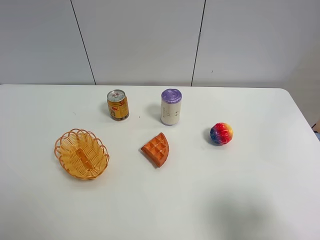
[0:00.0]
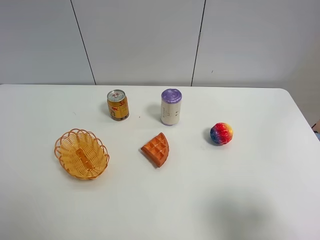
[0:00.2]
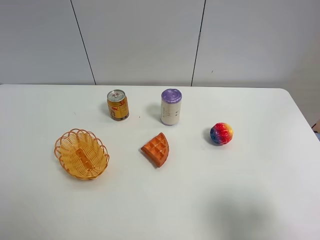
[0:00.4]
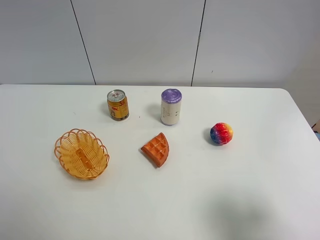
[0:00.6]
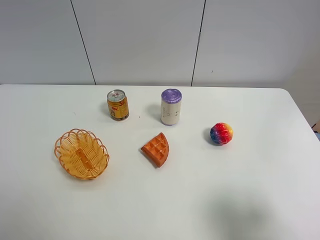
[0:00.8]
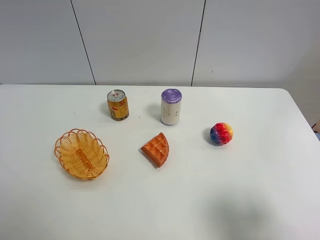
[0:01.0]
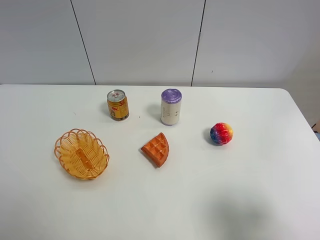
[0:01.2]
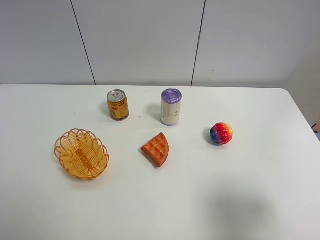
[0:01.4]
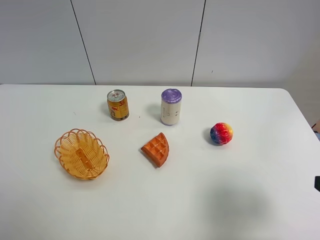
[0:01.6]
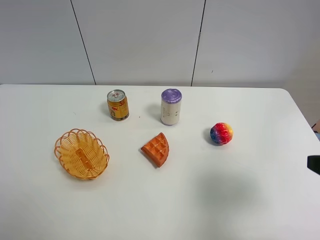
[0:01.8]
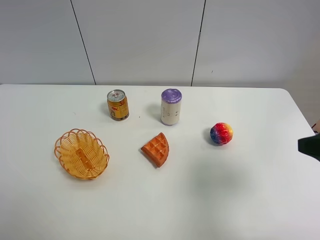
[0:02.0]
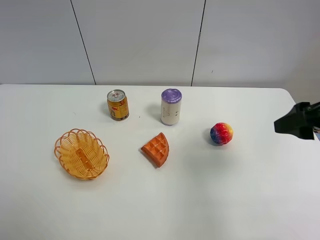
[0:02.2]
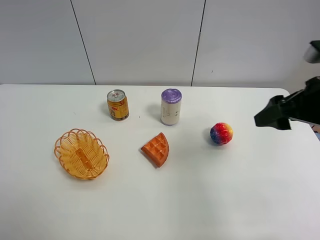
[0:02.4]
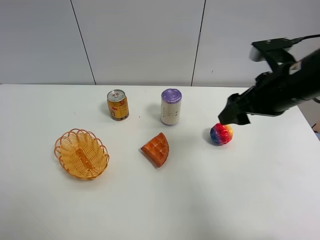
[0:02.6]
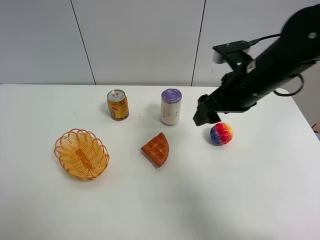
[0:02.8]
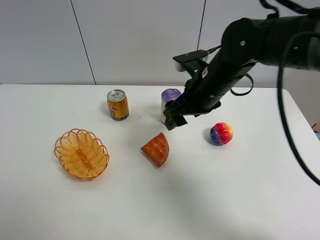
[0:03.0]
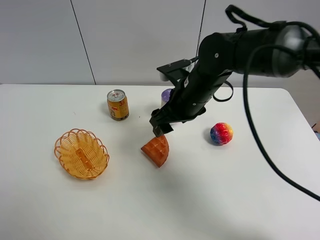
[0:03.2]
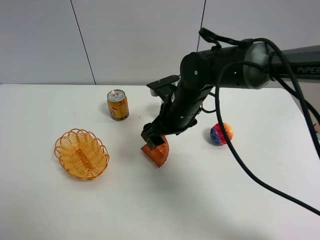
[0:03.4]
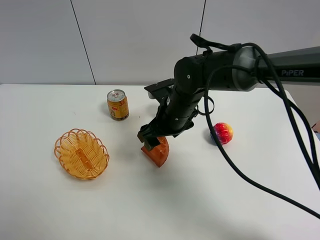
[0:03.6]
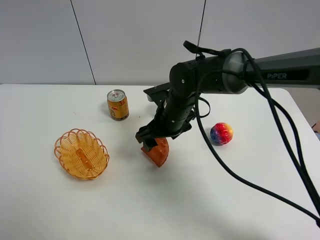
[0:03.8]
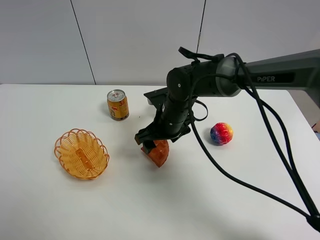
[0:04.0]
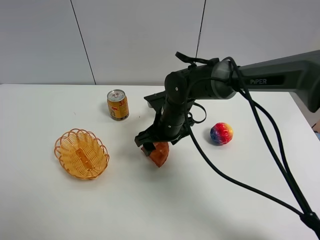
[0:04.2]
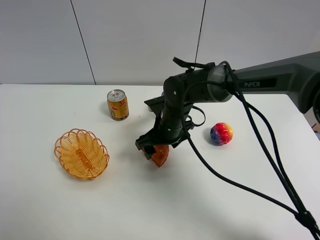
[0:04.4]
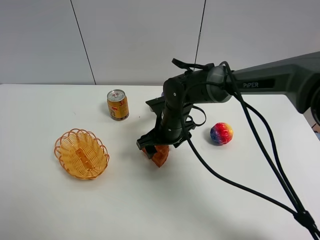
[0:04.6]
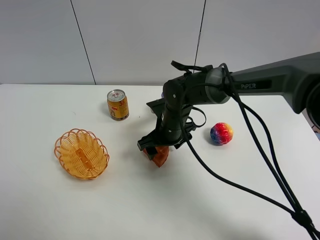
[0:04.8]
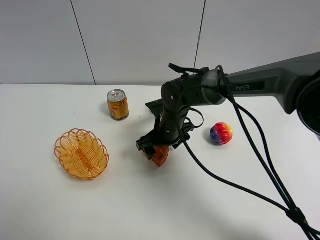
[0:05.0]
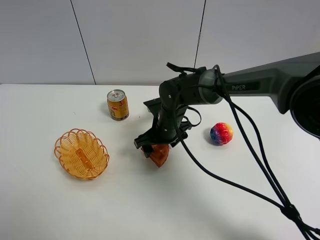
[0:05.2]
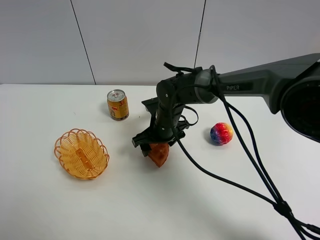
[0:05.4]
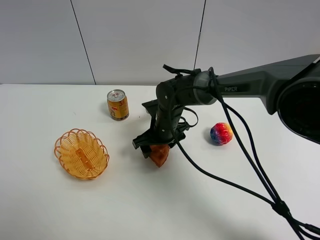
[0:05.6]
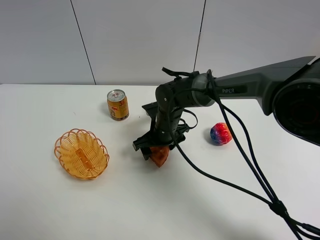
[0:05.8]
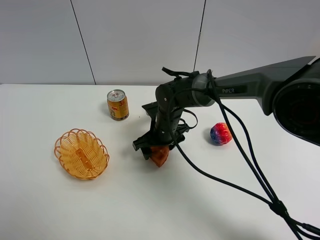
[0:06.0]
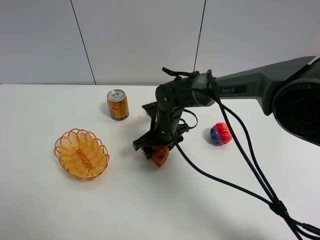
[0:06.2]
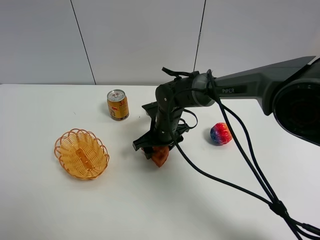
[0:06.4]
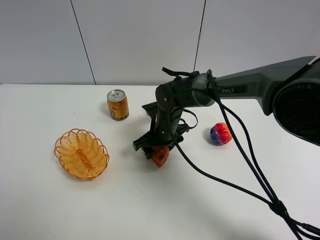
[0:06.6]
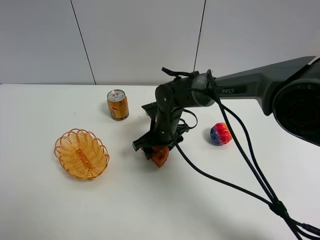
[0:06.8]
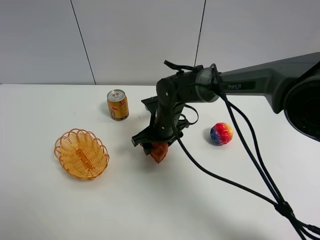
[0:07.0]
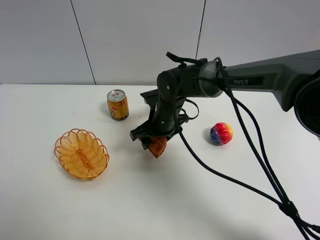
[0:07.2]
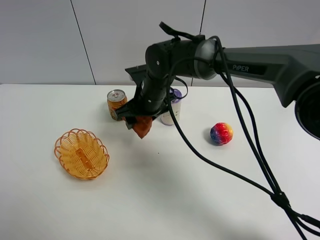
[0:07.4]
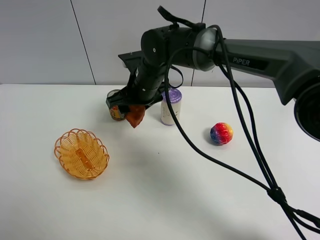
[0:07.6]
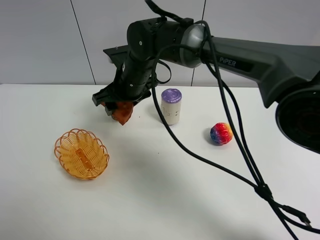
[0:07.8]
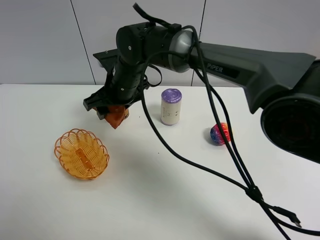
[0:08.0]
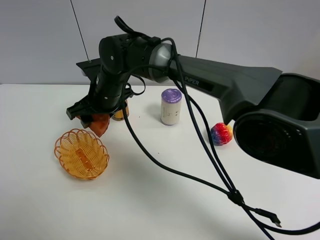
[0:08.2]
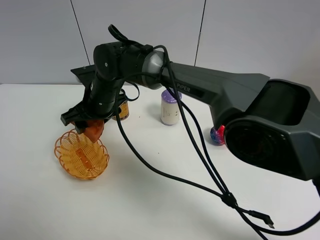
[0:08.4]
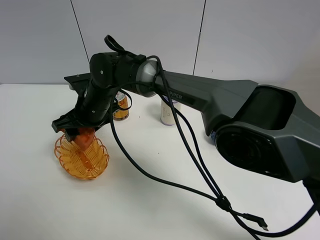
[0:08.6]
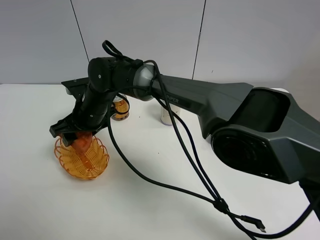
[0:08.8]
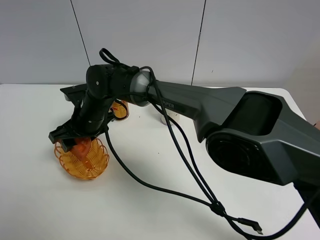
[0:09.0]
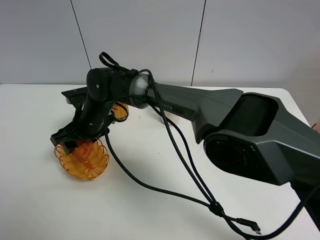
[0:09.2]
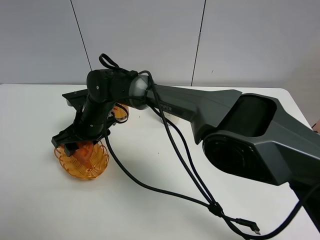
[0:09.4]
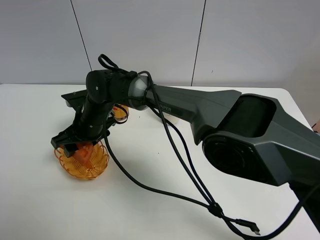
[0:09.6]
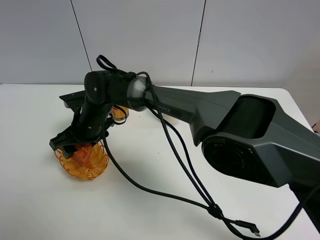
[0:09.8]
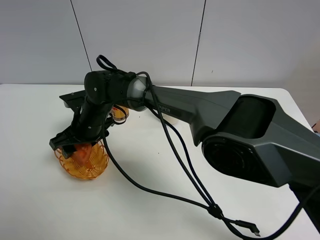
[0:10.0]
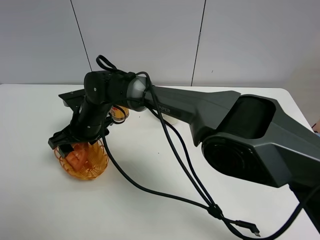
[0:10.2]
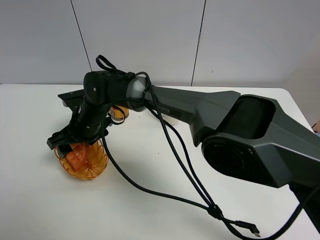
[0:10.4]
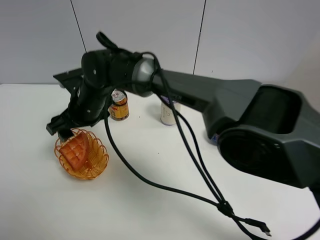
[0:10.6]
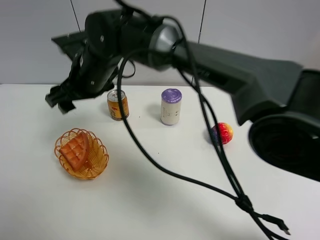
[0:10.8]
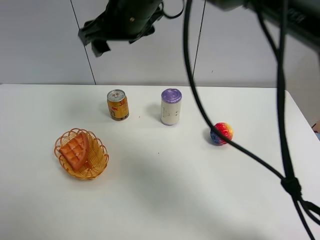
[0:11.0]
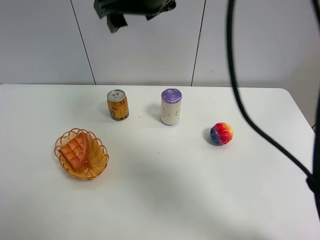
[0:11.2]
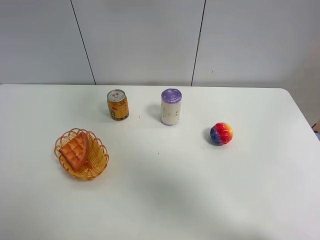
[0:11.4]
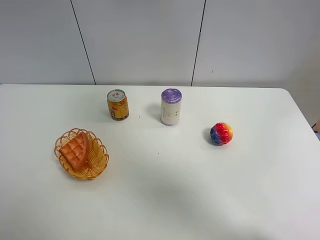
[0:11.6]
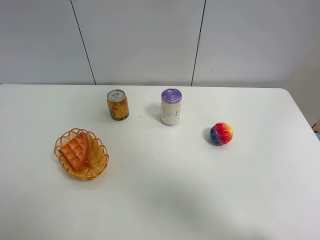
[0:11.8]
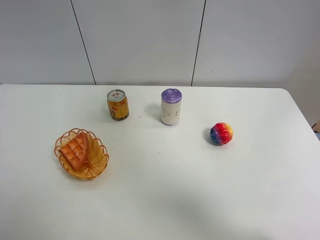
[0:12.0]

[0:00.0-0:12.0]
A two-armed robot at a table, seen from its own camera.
Task of the whole recording: Put the bakery in the basket.
Step, 0:00.0 to 0:06.8: Grasp the bread with right gripper.
Step, 0:07.0 to 0:10.6: Place the bread in the basket with right gripper.
0:00.0 to 0:01.6: The right gripper is displaced forward by roughly 5 cm.
0:01.6 to 0:03.0: The right gripper travels forward and to the left by approximately 30 cm.
0:03.0 to 0:04.4: The right gripper shifts some 15 cm downward and to the left.
0:04.4 to 0:06.0: There are only small adjustments of the grippers.
0:06.0 to 0:07.6: The right gripper shifts some 10 cm upward.
0:07.6 to 0:09.0: The right gripper moves to the left and downward, roughly 15 cm.
0:09.0 to 0:10.4: Neither gripper changes place.
0:10.4 to 0:12.0: The right gripper shifts roughly 50 cm upward and to the right.

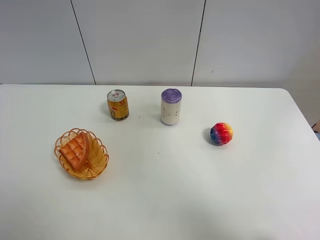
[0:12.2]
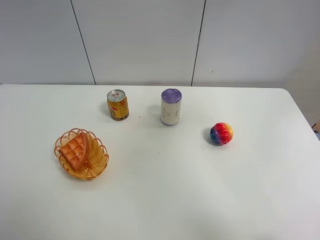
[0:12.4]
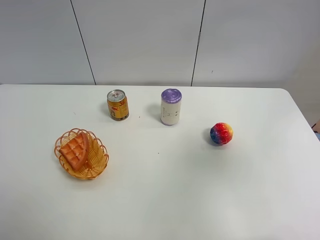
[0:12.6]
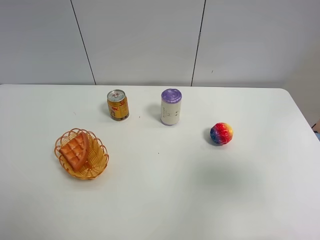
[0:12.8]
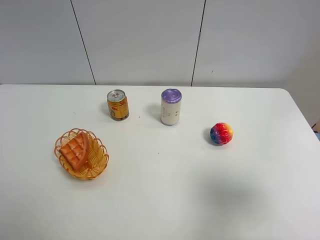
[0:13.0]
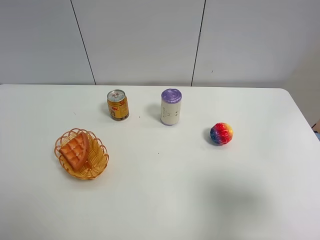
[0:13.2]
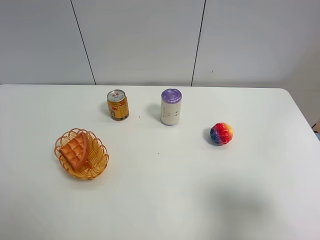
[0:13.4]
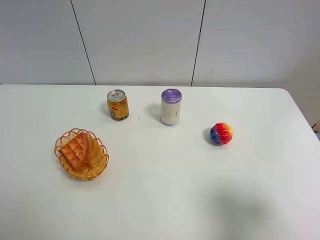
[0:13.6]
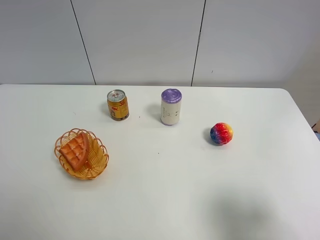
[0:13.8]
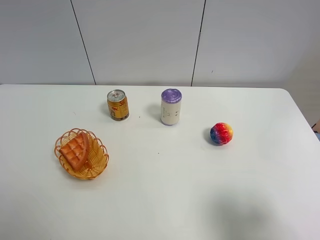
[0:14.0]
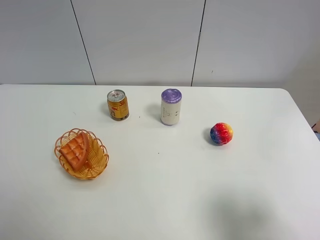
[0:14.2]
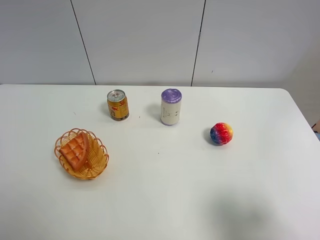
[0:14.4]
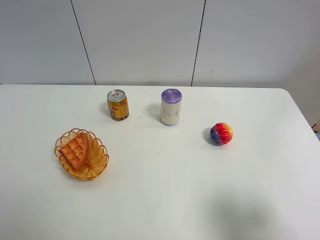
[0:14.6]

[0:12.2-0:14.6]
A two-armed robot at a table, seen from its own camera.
Task of the whole recording: Put the bakery in the basket.
0:12.2 to 0:13.4: The right gripper moves downward and backward, about 30 cm.

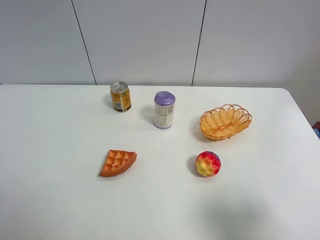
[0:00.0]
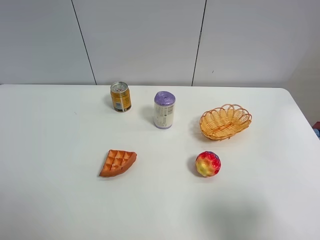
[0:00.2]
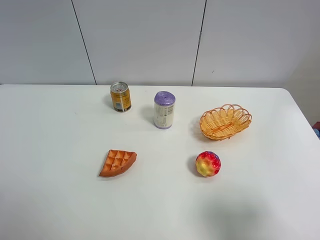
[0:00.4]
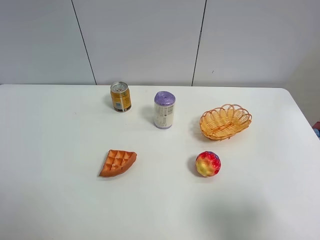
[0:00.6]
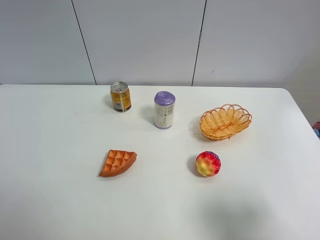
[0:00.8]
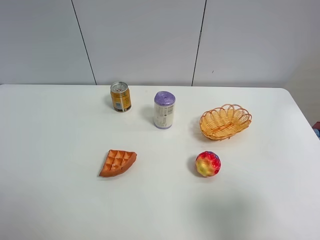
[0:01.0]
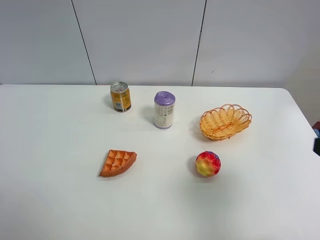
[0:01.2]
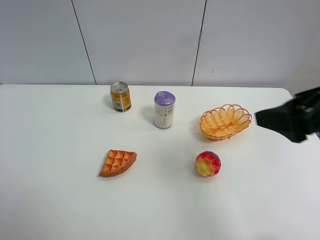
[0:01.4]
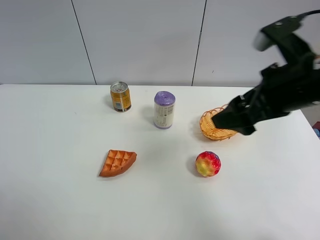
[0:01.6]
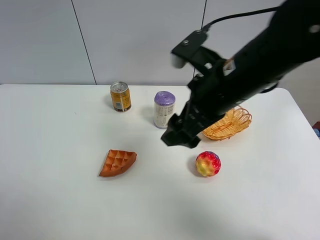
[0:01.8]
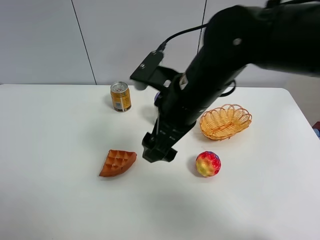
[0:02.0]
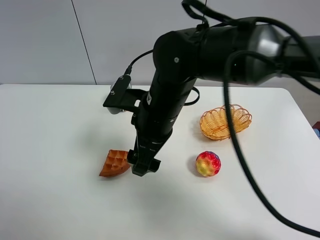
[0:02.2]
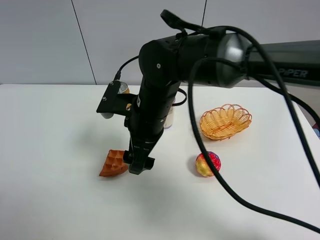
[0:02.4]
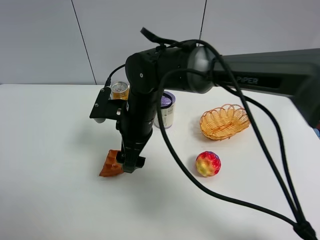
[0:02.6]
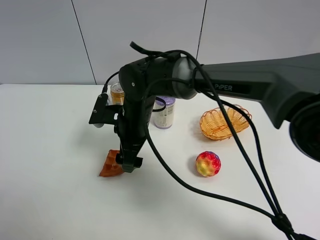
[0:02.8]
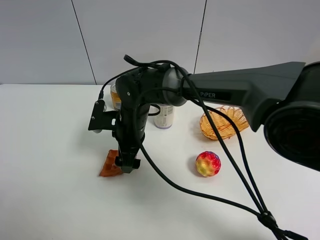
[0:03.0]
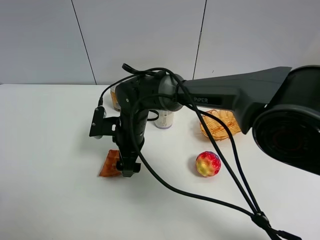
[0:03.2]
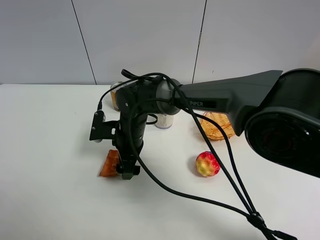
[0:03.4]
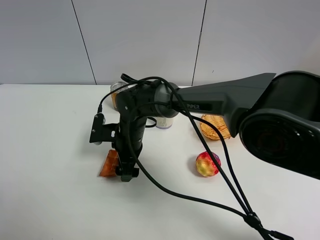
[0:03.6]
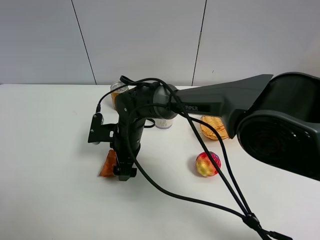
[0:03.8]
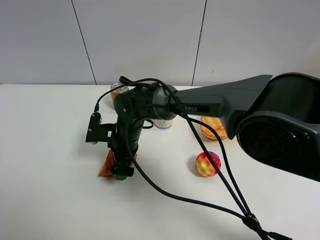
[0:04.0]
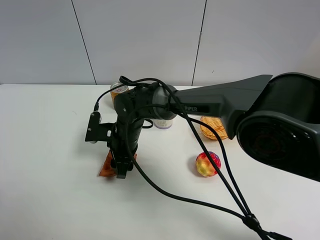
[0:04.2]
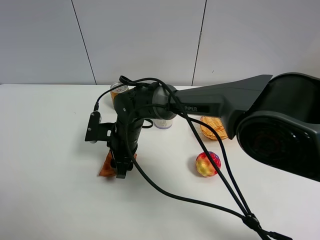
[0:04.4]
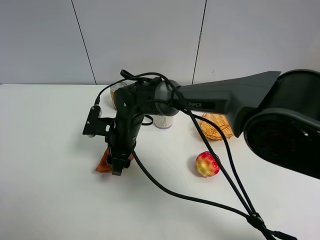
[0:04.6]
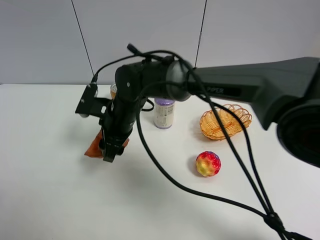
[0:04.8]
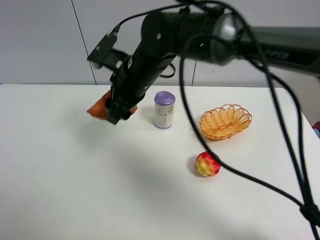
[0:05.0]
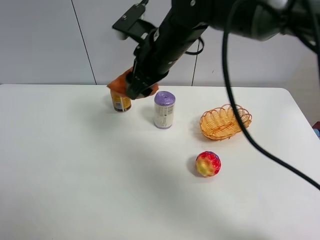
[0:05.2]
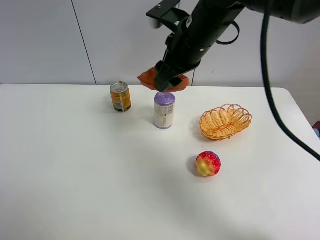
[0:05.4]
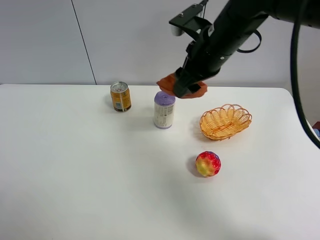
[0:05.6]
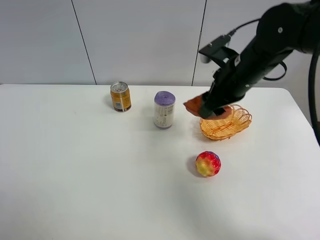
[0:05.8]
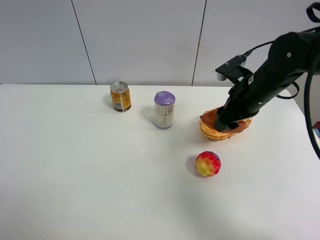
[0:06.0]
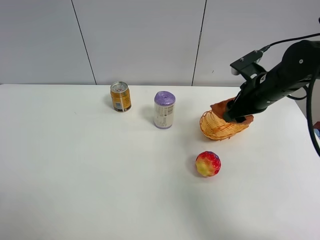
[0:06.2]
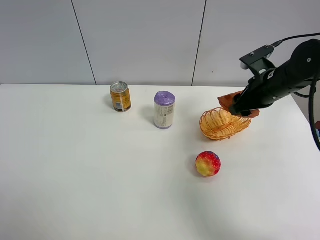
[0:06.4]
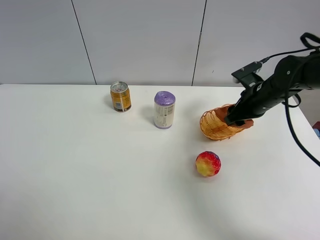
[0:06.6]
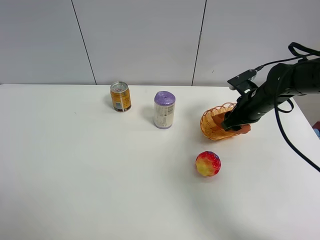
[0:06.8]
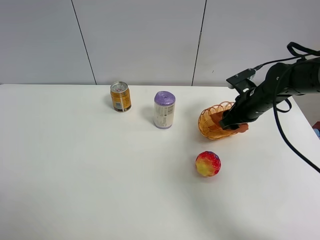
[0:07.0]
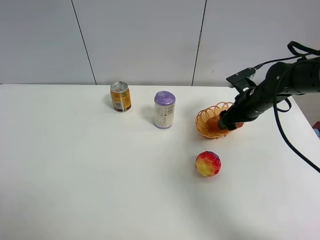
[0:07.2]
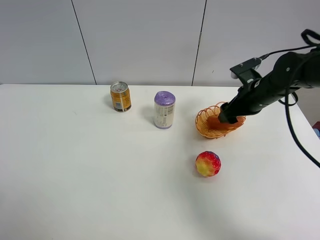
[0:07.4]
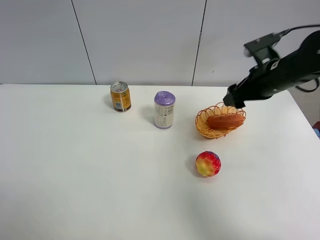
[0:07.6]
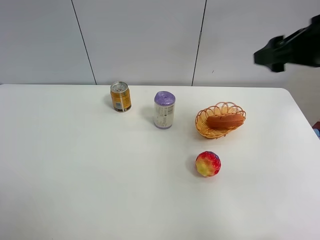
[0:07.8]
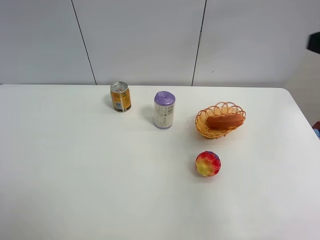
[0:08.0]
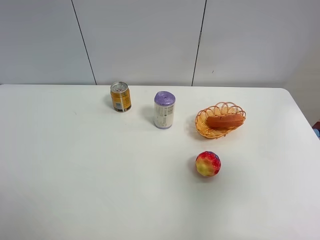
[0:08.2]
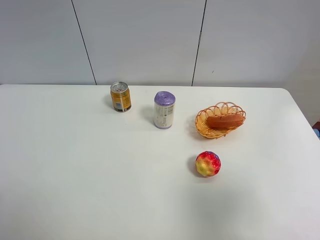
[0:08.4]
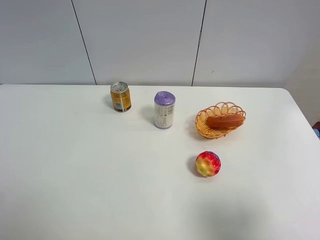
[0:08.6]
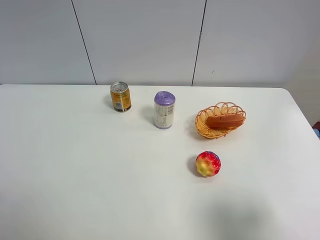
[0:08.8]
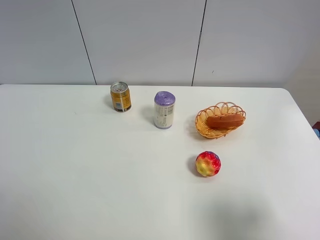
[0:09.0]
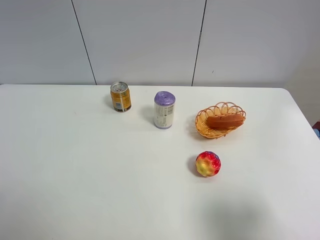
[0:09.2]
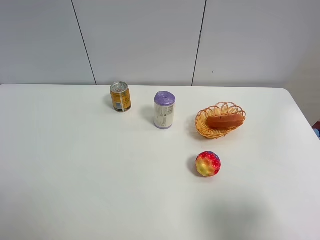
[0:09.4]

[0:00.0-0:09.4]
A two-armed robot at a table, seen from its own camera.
Task of the whole recording: Put the bakery in the basket.
Step, 0:00.0 to 0:04.0: Grasp the bread with right gripper.
Step, 0:04.2 to 0:07.6: Place the bread in the basket with right gripper.
0:00.0 to 0:01.6: The right gripper shifts approximately 25 cm forward and to the left.
0:01.6 to 0:03.2: The right gripper is displaced to the left and downward by about 30 cm.
0:03.2 to 0:04.8: The right gripper moves upward, roughly 5 cm, and closes.
0:04.8 to 0:06.2: The right gripper heads to the right, covering roughly 30 cm.
0:06.2 to 0:07.8: The right gripper travels upward and backward by approximately 20 cm, and opens its fingers.
0:07.8 to 0:09.4: The right gripper travels backward and downward by about 25 cm.
